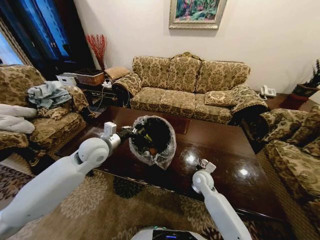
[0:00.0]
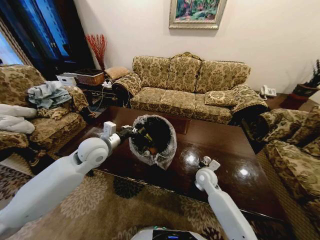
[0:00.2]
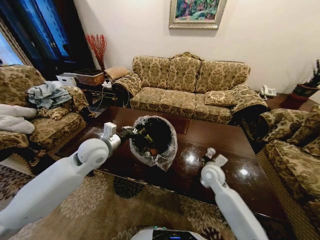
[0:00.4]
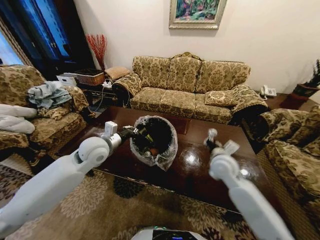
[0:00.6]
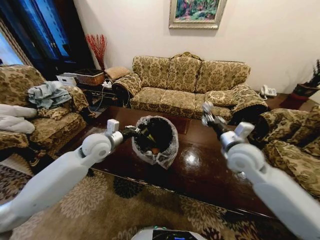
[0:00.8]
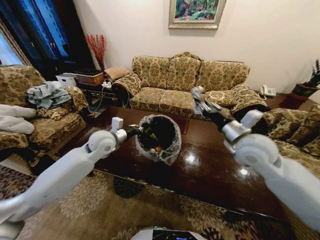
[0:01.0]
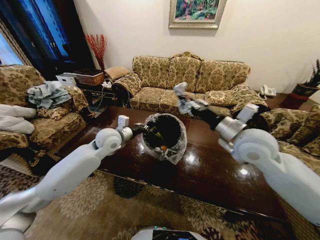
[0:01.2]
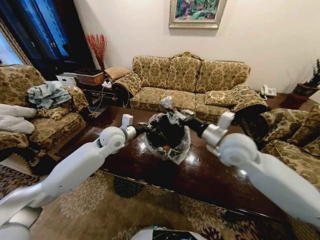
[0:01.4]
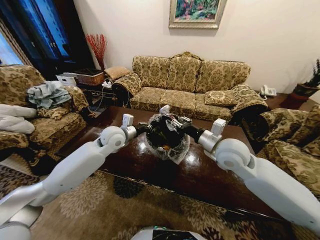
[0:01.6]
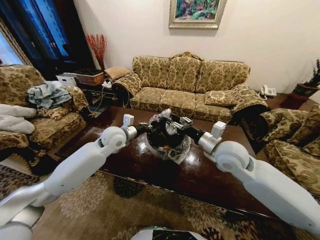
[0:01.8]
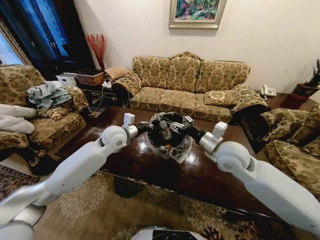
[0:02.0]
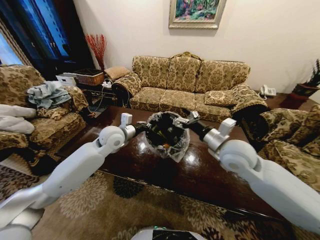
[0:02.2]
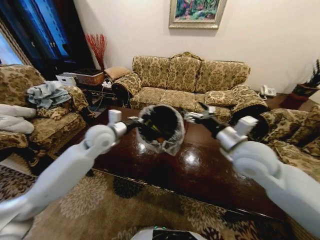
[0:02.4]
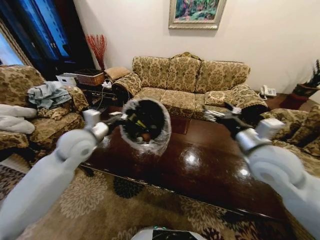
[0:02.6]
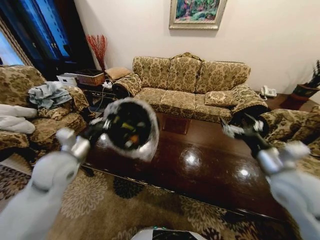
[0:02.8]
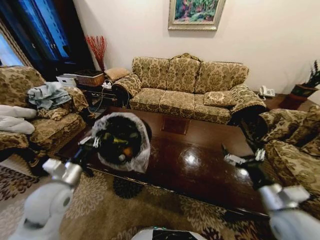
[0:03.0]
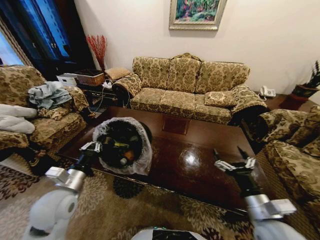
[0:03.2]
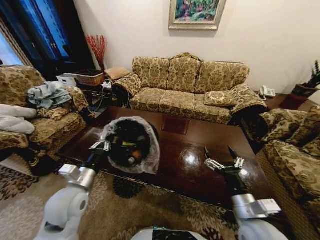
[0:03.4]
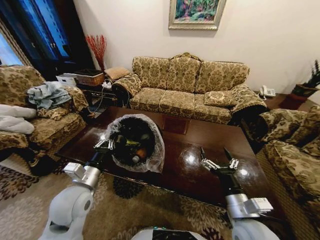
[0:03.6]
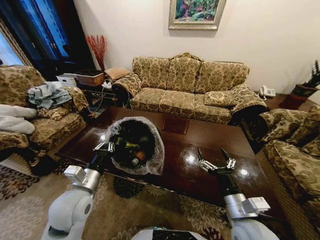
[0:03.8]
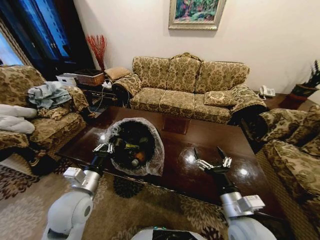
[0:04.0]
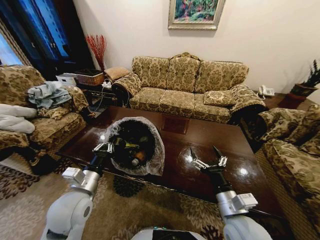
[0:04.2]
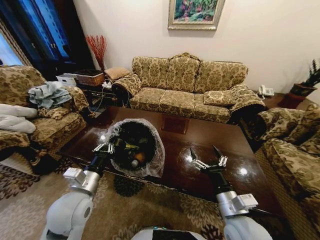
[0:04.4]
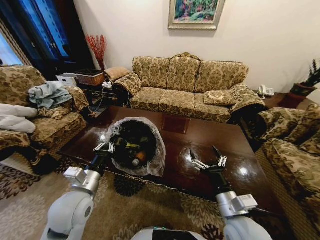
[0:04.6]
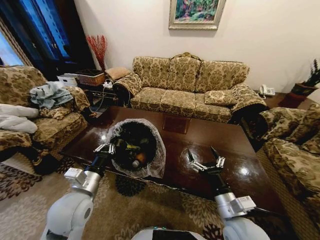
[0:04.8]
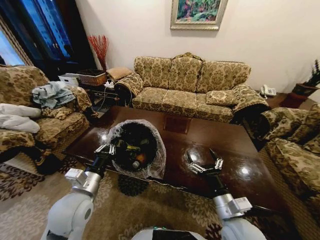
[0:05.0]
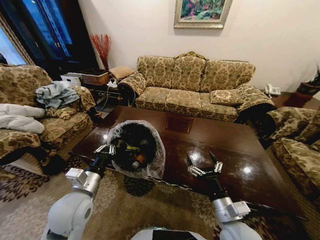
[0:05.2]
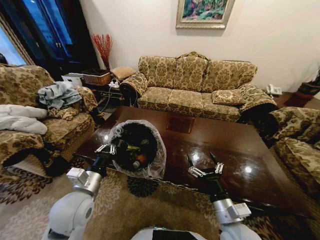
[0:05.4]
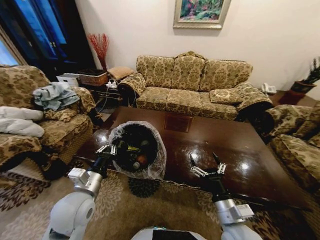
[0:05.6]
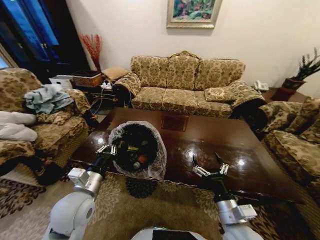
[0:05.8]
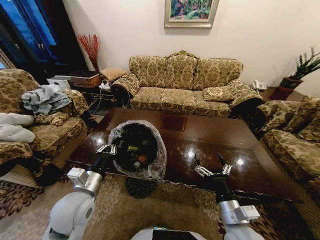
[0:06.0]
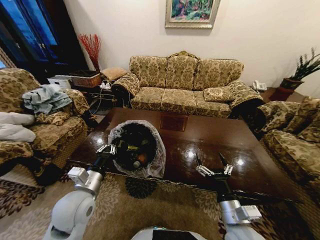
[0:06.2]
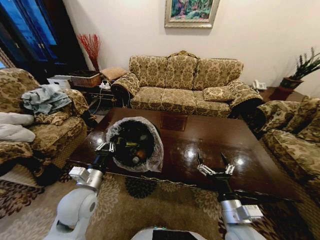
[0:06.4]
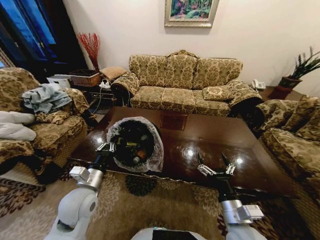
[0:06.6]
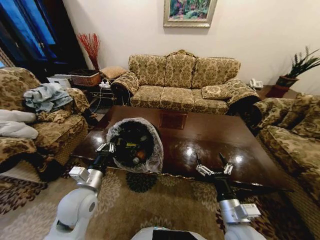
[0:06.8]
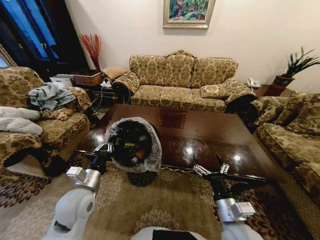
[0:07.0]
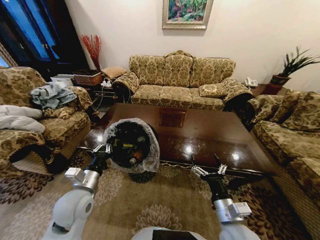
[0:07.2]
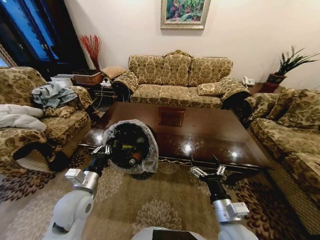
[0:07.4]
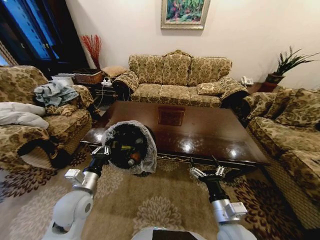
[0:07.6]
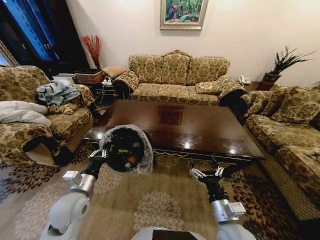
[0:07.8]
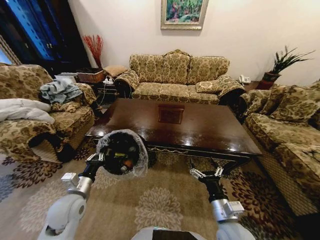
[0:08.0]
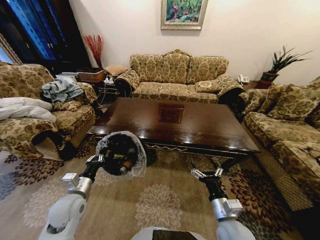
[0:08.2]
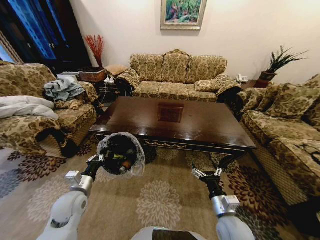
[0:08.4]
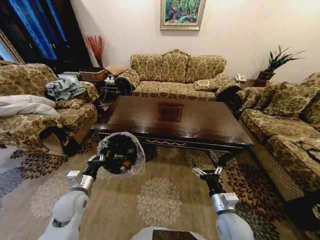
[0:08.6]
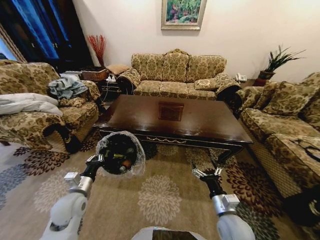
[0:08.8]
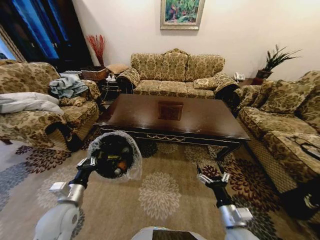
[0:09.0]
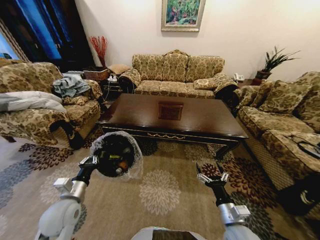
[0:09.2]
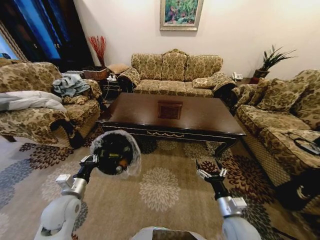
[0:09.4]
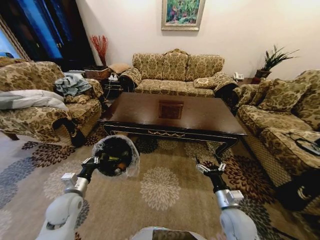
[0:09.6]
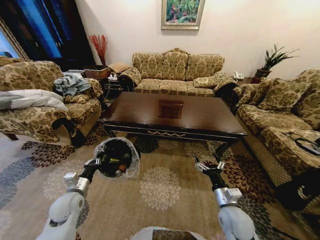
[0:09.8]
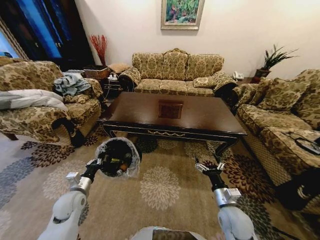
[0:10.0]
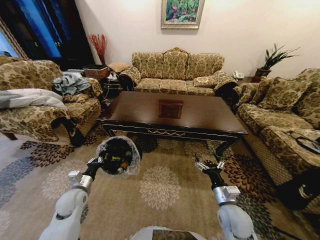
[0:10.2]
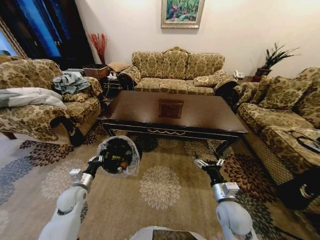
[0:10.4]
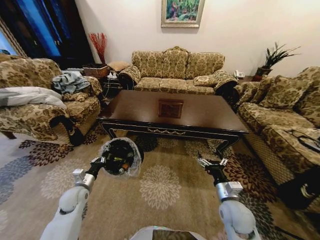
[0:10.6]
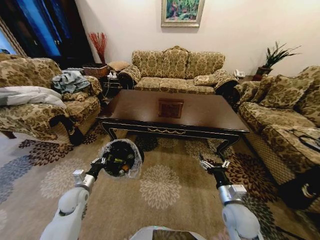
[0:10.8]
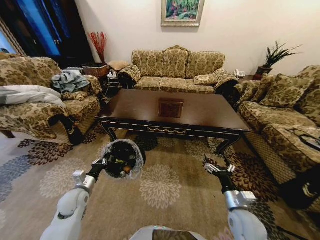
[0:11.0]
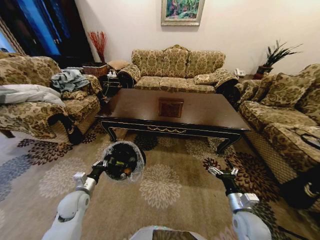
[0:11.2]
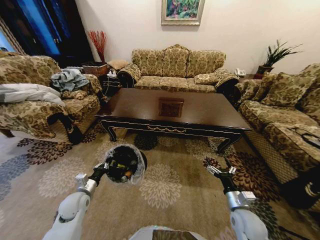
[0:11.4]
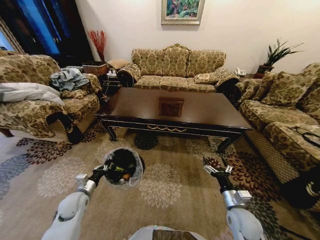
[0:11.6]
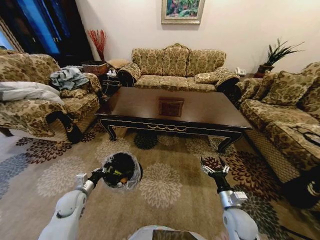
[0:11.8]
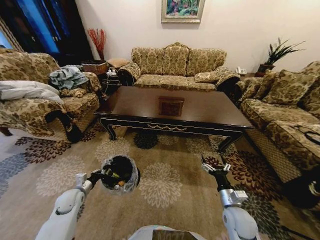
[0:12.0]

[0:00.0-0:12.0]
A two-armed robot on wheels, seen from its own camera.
Task of the whole recording: Move to the front of the table and place the trash on the table into the trash bin.
0:00.0 to 0:01.6: The right gripper heads upward, covering roughly 25 cm. The left gripper travels forward by approximately 5 cm.
0:01.6 to 0:03.0: The right gripper shifts some 25 cm backward, to the right and downward, and opens up; the left gripper goes about 25 cm backward and to the left.
0:03.0 to 0:04.4: The right gripper goes approximately 15 cm to the left; the left gripper travels to the right by roughly 5 cm.
0:07.6 to 0:09.0: The right gripper shifts by some 5 cm; the left gripper shifts by roughly 5 cm.
0:09.0 to 0:10.4: The left gripper moves downward, forward and to the left, about 10 cm; the right gripper travels forward by some 5 cm.
0:10.4 to 0:12.0: The right gripper moves roughly 5 cm.

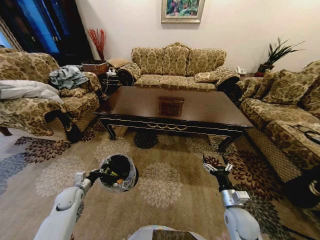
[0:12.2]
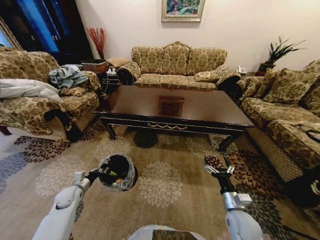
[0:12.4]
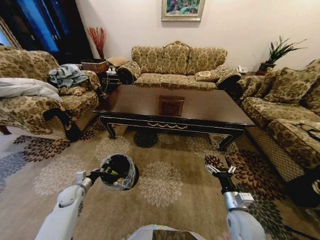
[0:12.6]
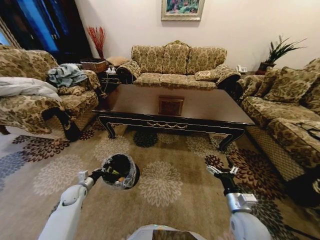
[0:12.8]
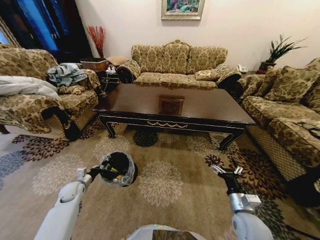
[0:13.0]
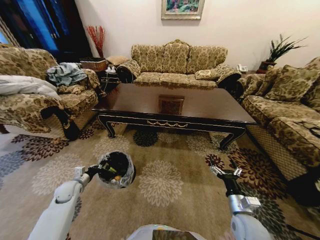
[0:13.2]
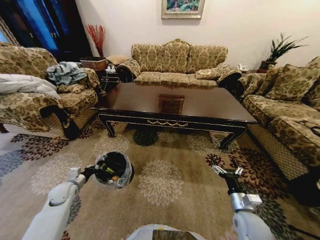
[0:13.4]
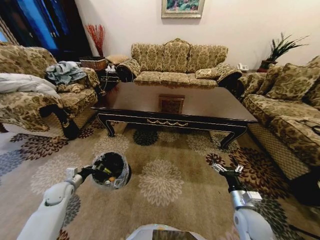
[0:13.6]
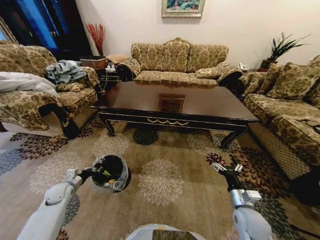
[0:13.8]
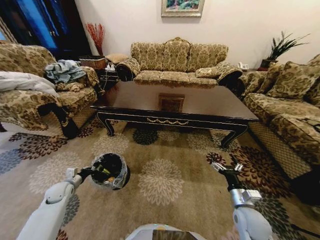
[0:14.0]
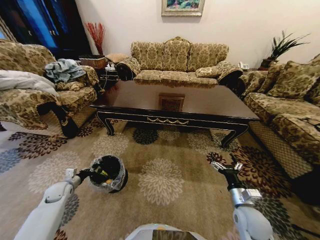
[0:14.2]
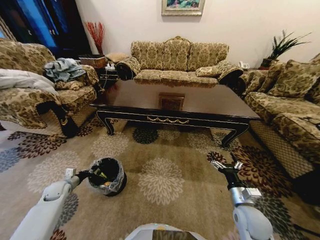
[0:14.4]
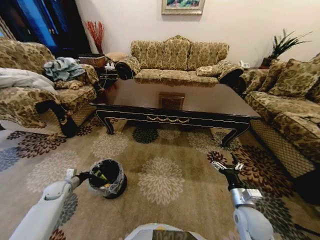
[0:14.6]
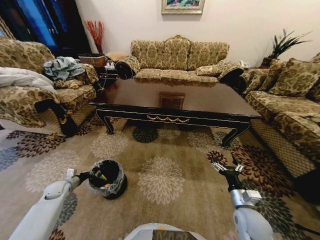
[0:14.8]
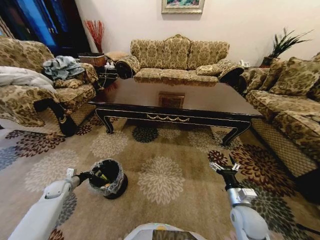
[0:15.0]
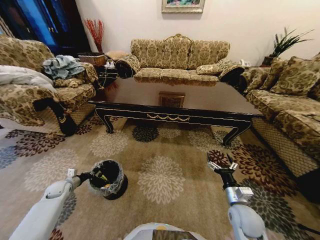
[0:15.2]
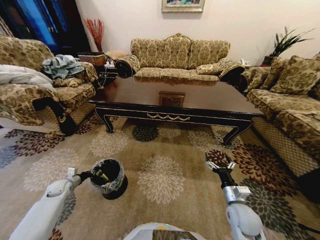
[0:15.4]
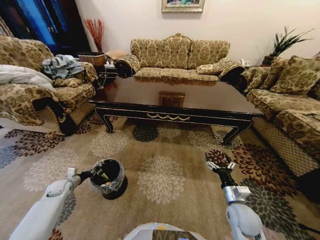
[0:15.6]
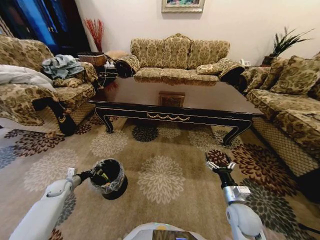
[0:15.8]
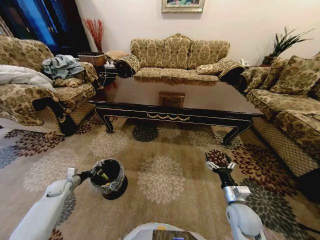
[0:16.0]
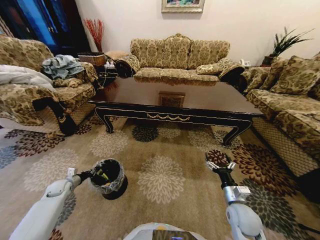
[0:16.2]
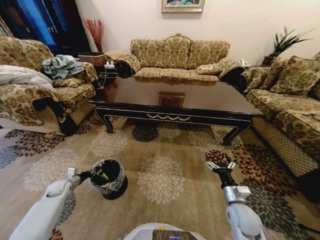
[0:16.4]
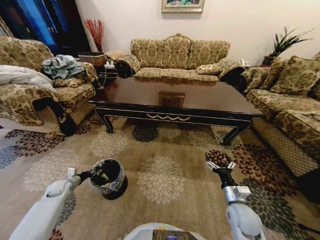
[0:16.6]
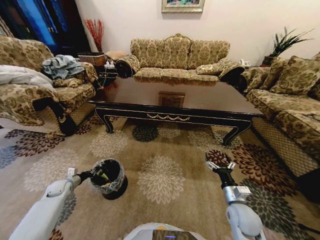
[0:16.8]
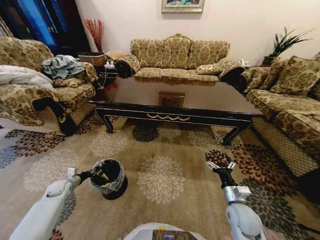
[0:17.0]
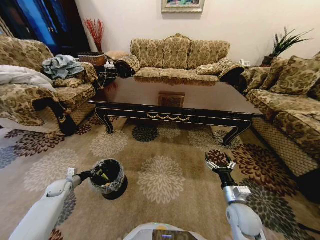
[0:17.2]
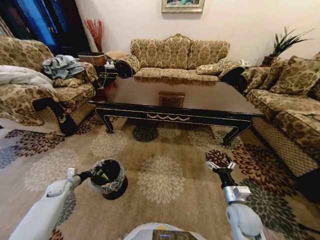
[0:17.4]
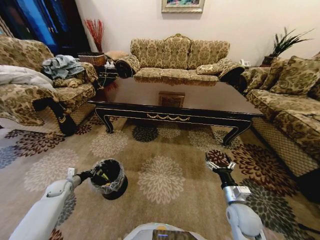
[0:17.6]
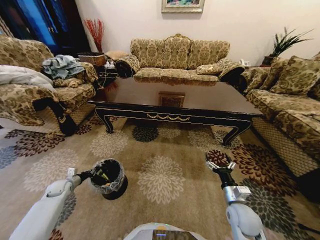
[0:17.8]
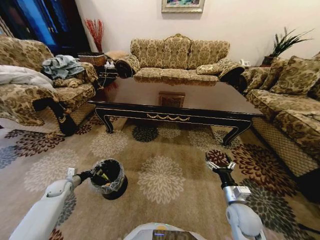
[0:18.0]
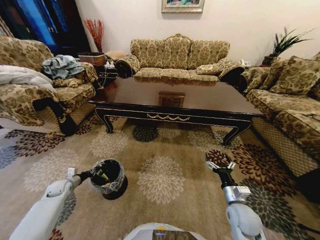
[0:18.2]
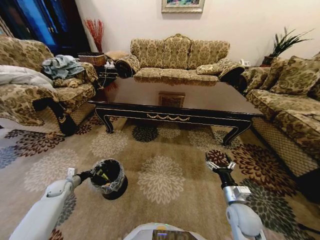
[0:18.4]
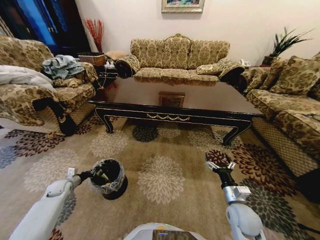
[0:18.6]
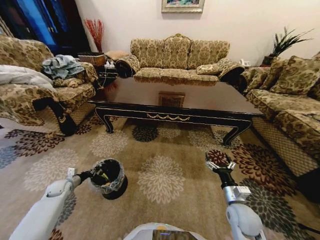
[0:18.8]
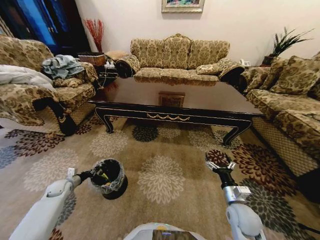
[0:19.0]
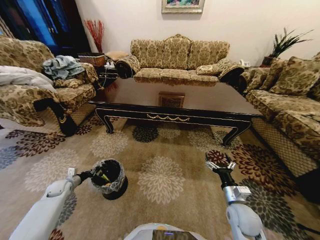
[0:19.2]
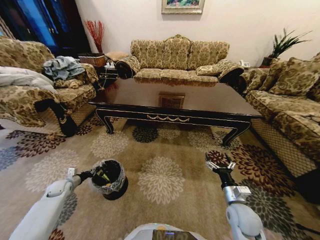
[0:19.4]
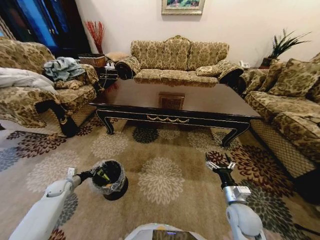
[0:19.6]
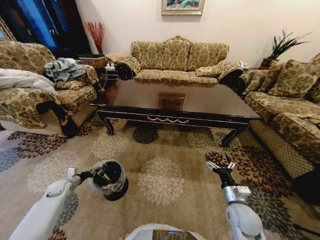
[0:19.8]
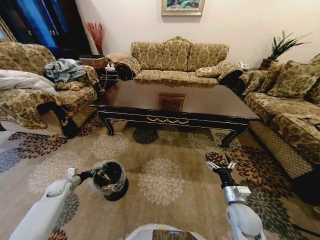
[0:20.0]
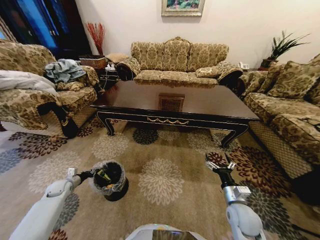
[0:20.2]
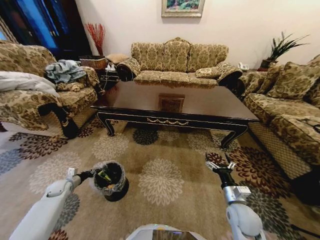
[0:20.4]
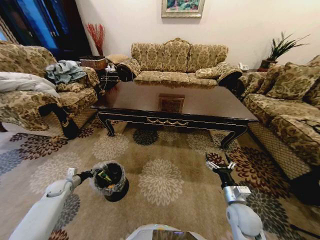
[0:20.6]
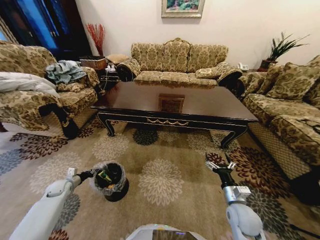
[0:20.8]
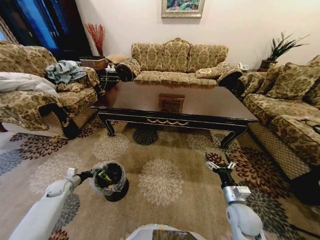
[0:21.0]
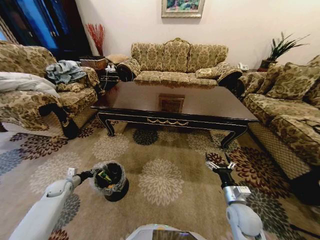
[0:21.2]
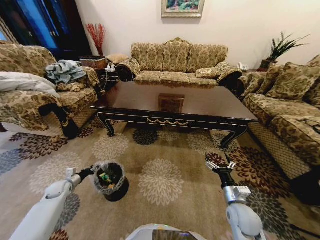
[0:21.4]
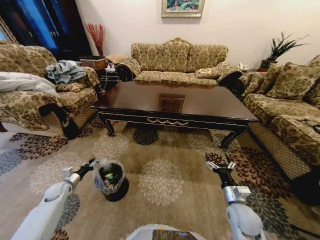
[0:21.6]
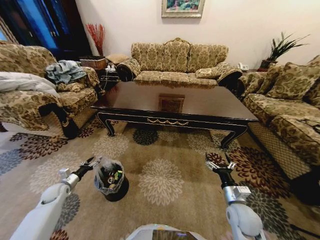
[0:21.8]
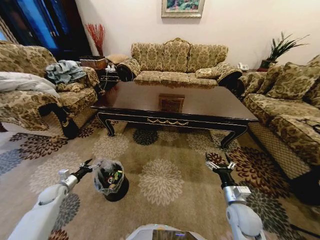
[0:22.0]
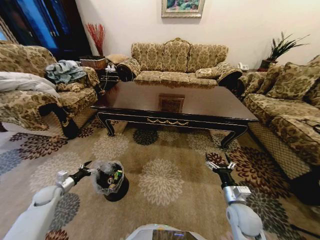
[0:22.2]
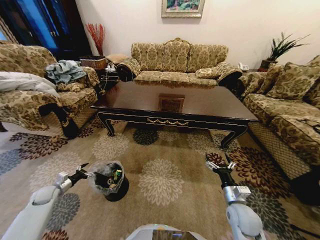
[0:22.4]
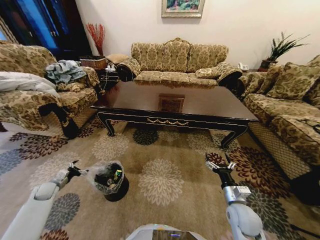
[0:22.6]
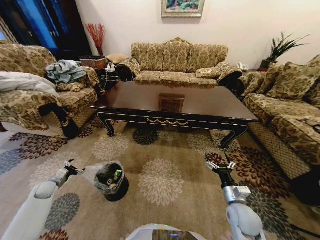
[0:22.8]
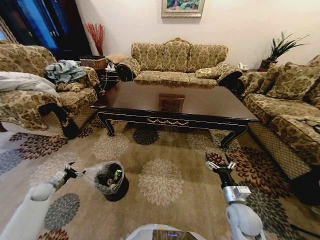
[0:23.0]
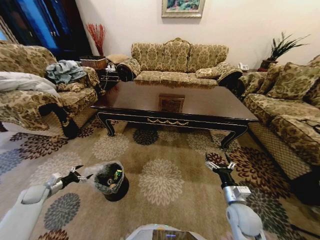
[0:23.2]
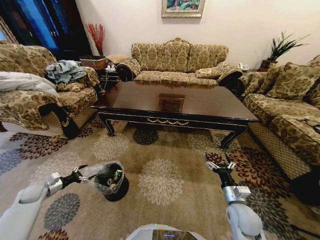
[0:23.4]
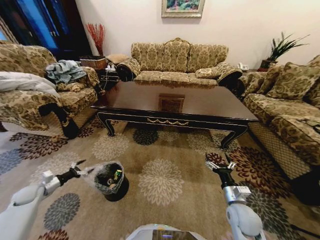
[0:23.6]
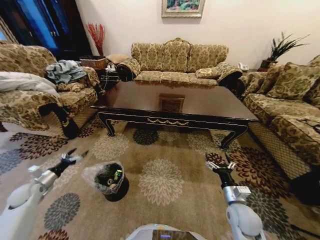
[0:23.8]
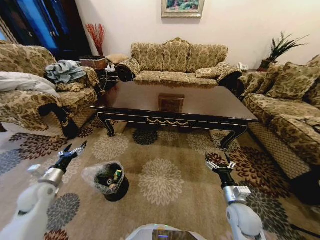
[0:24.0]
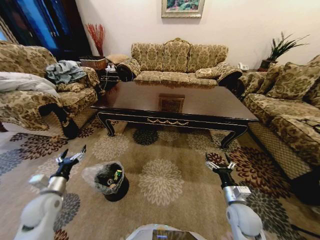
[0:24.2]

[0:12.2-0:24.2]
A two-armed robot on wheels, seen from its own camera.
Task of the whole recording: Move to the front of the table and place the trash on the table into the trash bin.
0:12.2 to 0:13.8: The left gripper changes place by roughly 5 cm.
0:13.8 to 0:15.2: The left gripper moves to the left, some 5 cm.
0:15.2 to 0:18.2: The two grippers keep their place.
0:19.8 to 0:21.2: Both grippers stay about where they are.
0:21.2 to 0:22.6: The left gripper ends up some 5 cm from where it was, and opens its fingers.
0:22.6 to 0:24.2: The left gripper shifts about 20 cm to the right, upward and backward.
